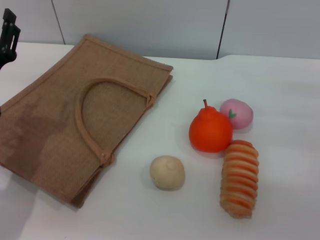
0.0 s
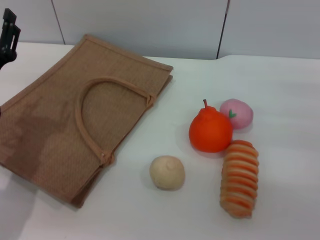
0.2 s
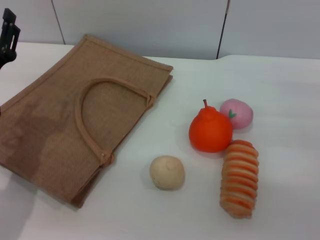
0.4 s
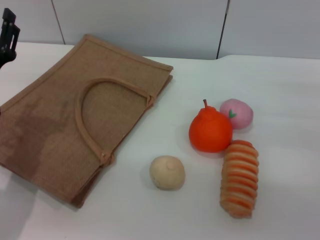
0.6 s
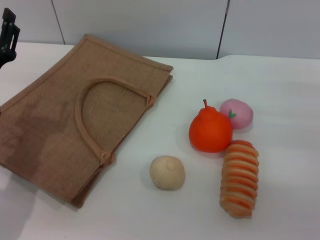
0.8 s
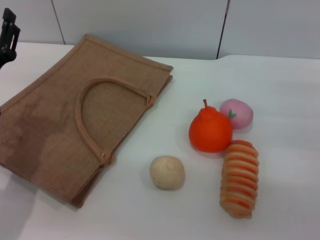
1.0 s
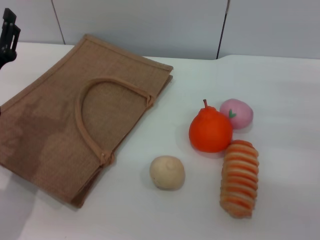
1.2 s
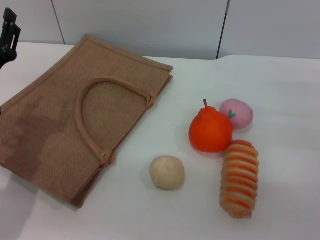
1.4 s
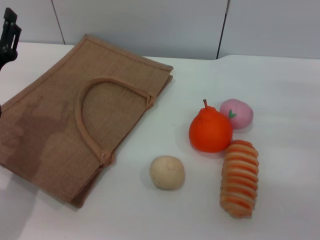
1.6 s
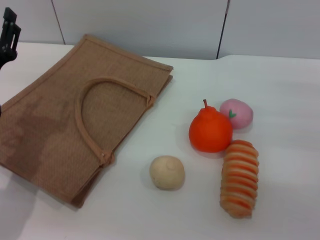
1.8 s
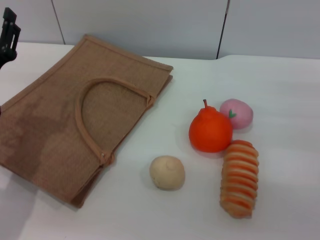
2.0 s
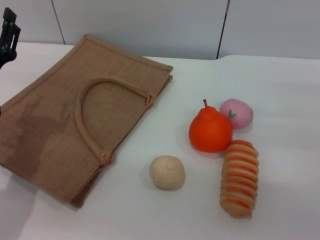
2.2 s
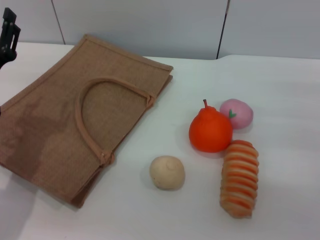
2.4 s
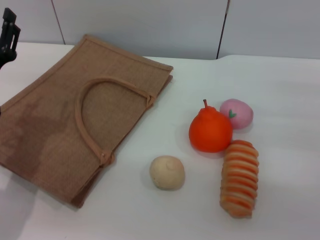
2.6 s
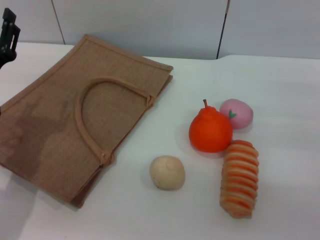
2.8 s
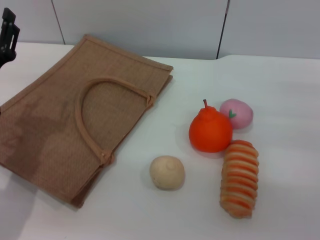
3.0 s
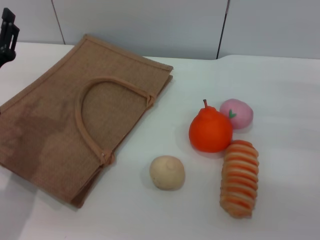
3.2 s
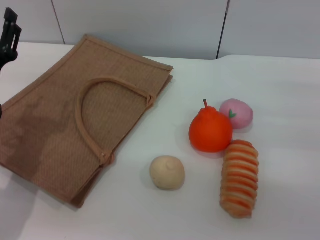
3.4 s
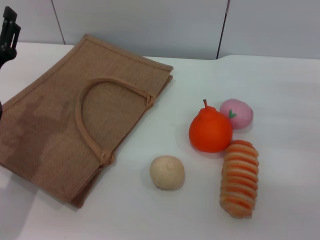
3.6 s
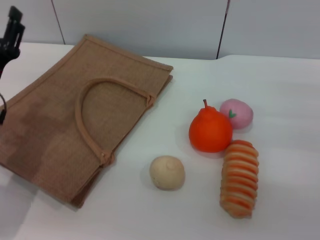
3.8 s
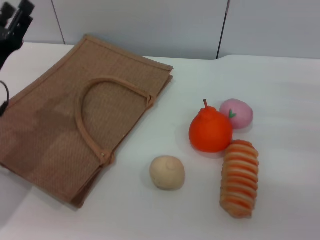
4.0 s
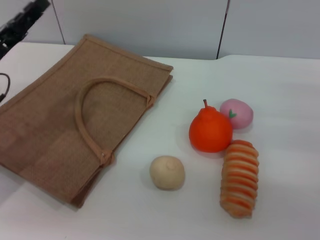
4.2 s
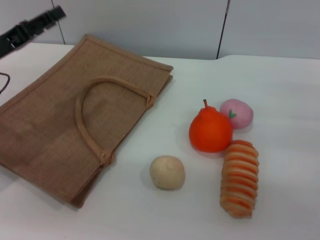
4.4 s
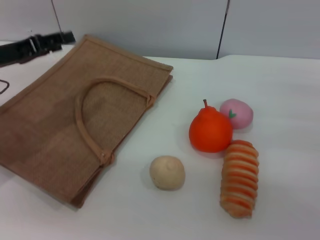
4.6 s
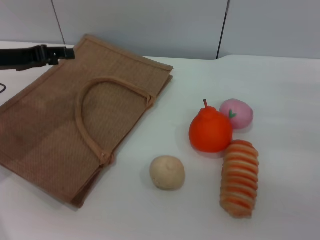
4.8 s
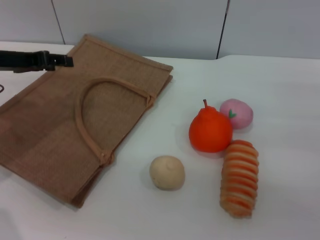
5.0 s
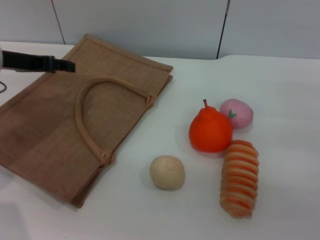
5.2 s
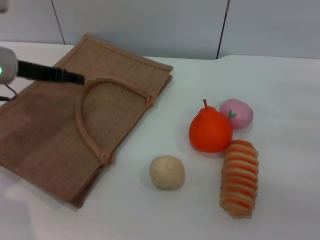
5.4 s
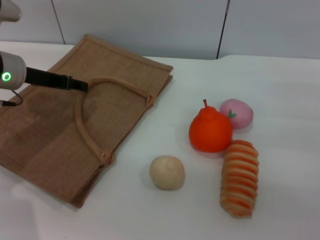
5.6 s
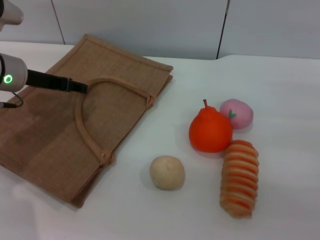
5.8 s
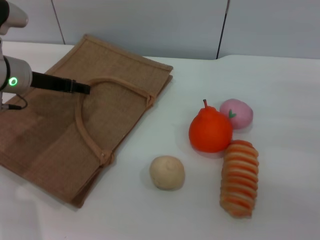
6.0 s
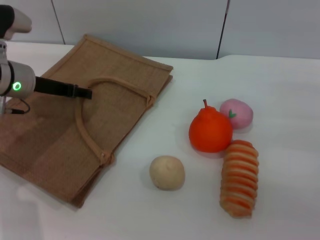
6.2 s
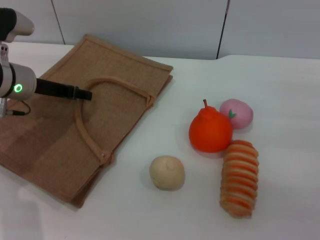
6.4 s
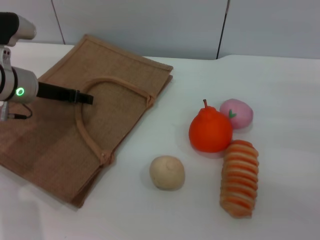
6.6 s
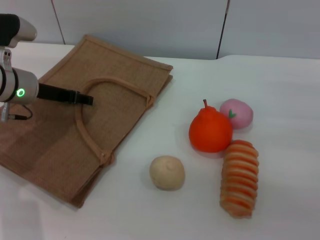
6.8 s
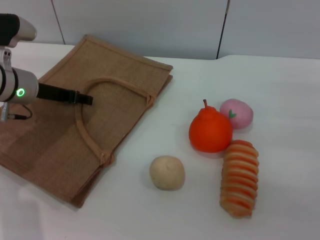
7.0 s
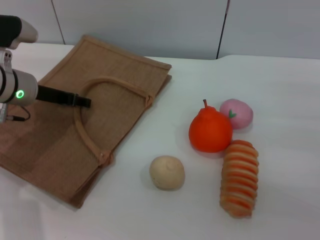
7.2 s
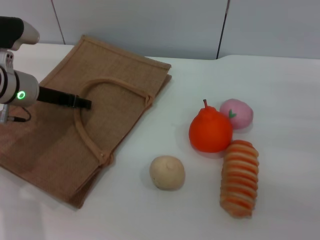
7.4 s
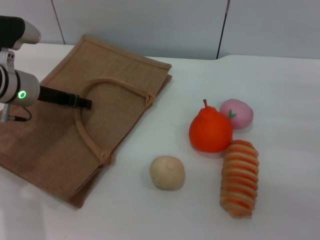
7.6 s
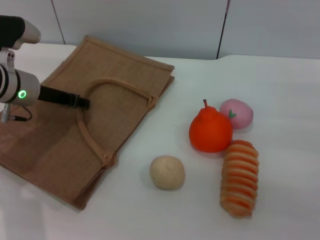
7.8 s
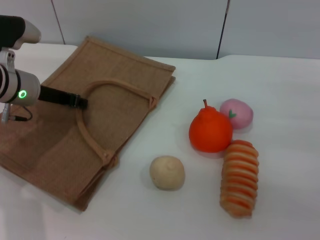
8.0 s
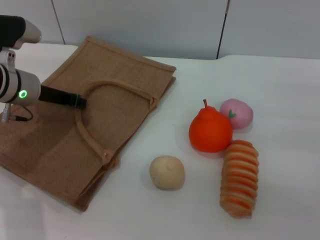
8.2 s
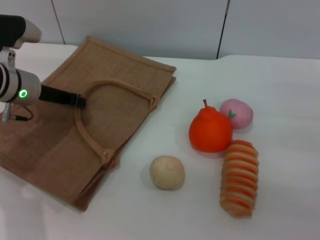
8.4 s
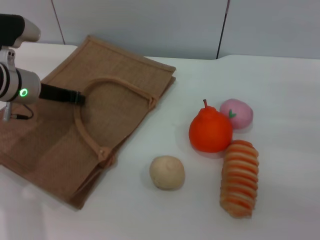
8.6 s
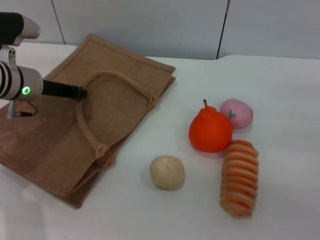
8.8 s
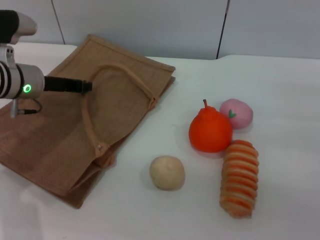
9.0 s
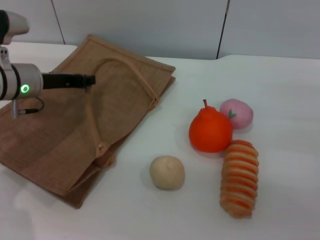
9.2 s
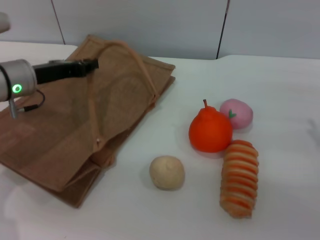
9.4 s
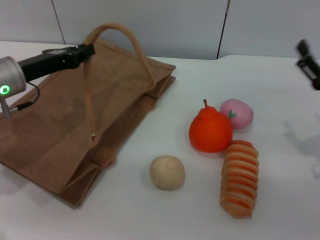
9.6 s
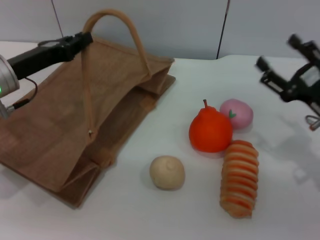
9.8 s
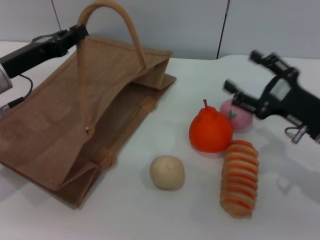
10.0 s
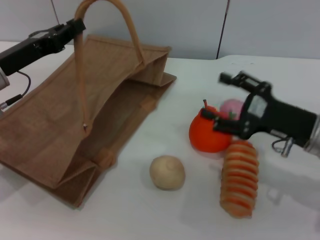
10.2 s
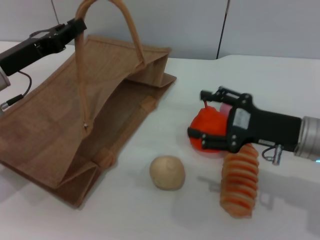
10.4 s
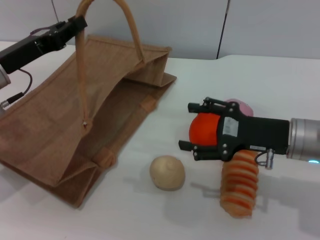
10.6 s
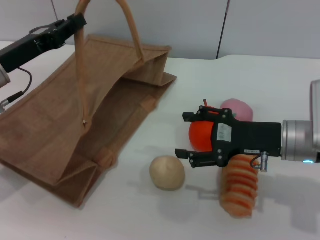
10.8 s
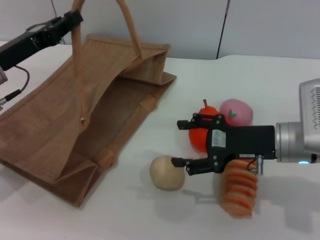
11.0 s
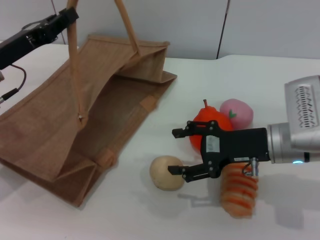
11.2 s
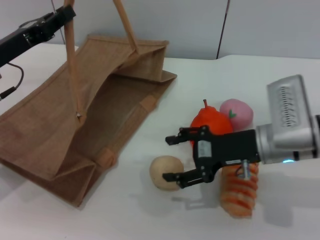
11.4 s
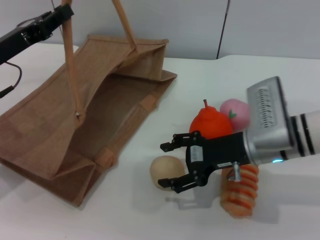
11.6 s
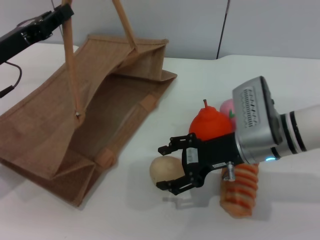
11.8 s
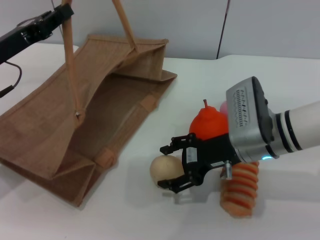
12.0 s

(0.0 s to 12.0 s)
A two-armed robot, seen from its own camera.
Task of the whole recording: pick up the egg yolk pastry from the table and place it in the brown handbag.
Step, 0.0 s - 9.6 s: Lift the woven bag with the left gripper to open it.
0.0 s - 3.0 s: The two grippers keep their place.
3.0 s - 4.4 s: The left gripper goes approximately 5 cm upward.
4.4 s - 6.0 s: The left gripper goes some 5 cm forward.
6.0 s - 7.6 s: The grippers move only a little.
7.6 s - 9.0 s: The left gripper closes its fingers.
9.0 s - 10.4 s: The left gripper shifts some 5 cm backward. The right gripper moves to the left, roughly 10 cm.
10.4 s - 12.0 s: The right gripper travels to the left by approximately 10 cm.

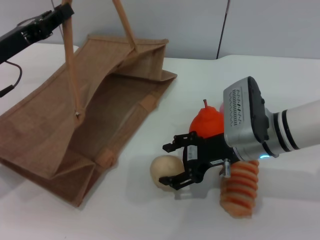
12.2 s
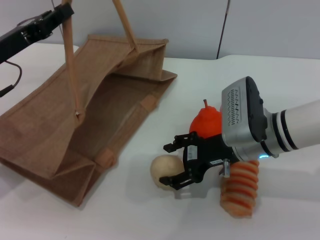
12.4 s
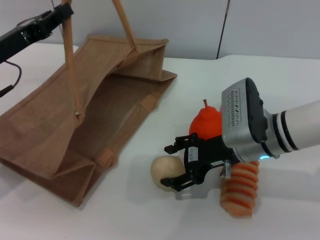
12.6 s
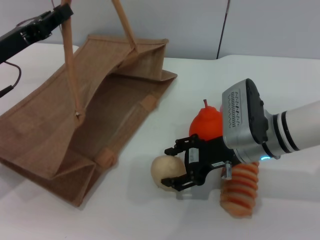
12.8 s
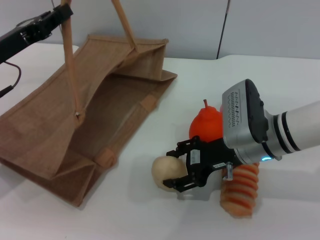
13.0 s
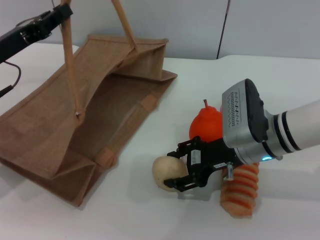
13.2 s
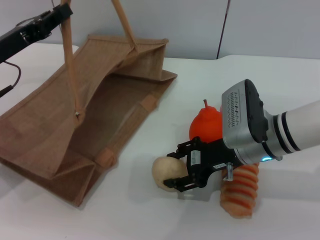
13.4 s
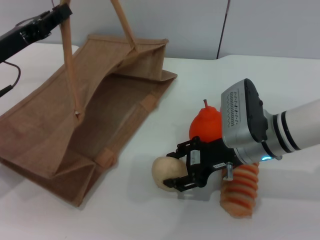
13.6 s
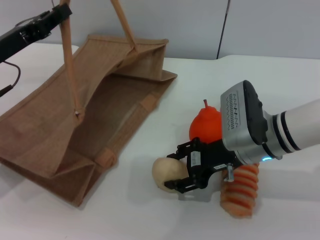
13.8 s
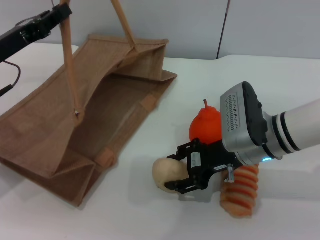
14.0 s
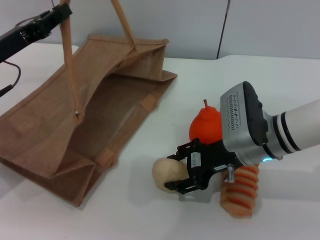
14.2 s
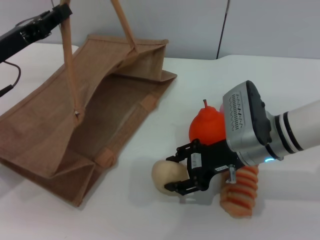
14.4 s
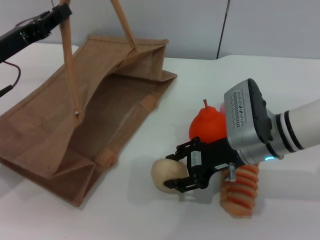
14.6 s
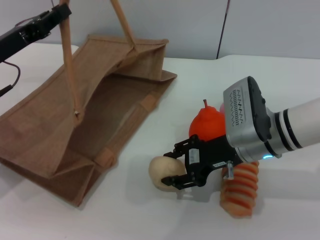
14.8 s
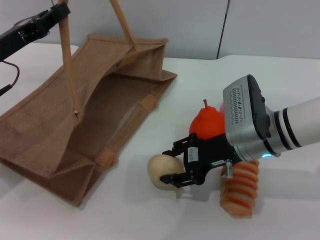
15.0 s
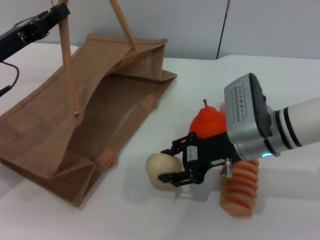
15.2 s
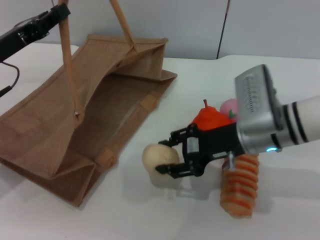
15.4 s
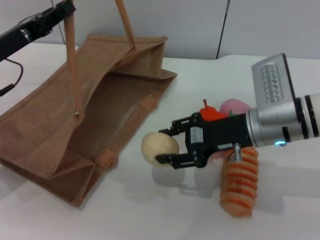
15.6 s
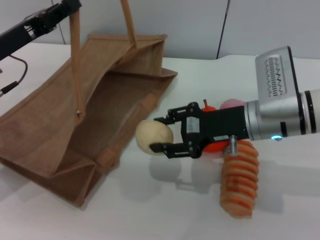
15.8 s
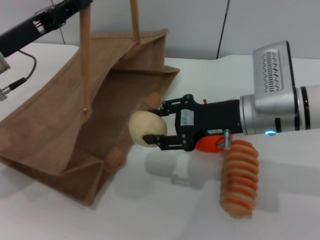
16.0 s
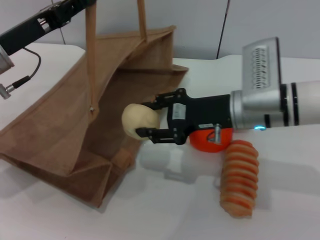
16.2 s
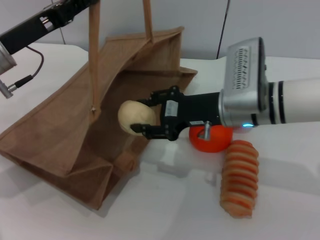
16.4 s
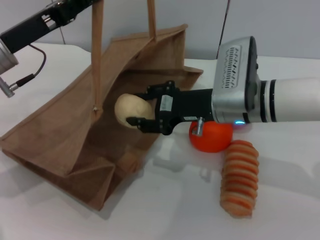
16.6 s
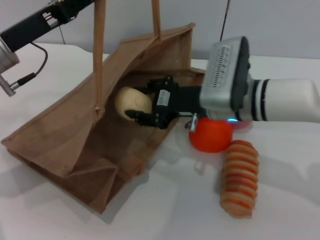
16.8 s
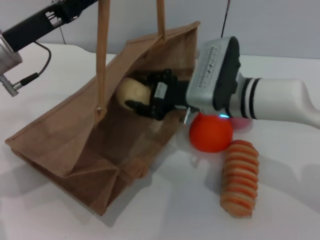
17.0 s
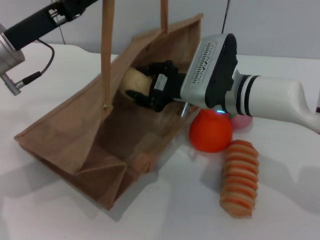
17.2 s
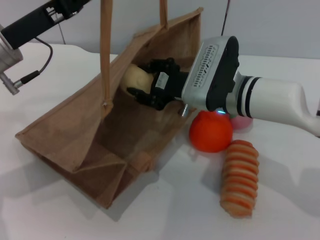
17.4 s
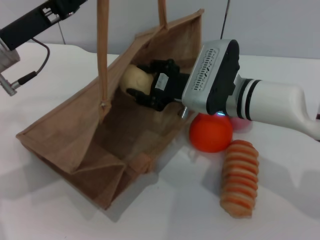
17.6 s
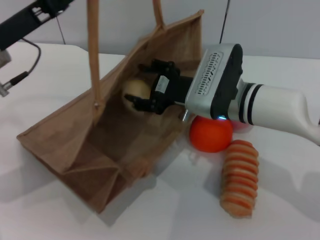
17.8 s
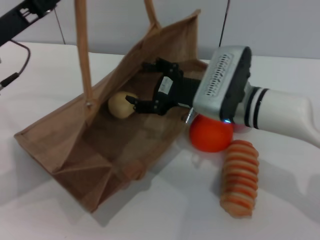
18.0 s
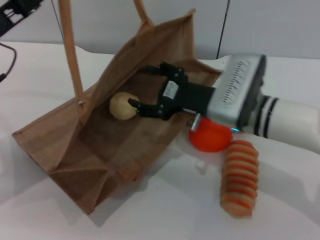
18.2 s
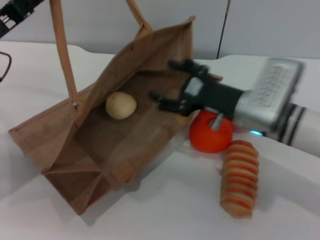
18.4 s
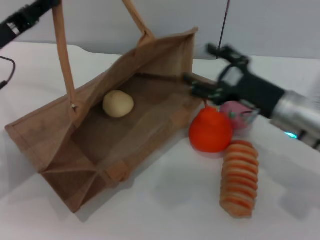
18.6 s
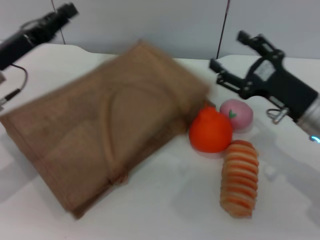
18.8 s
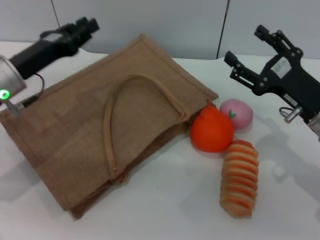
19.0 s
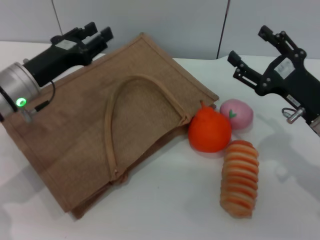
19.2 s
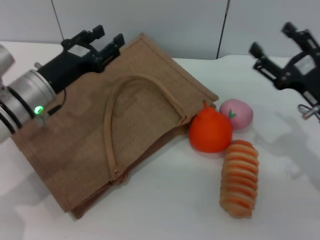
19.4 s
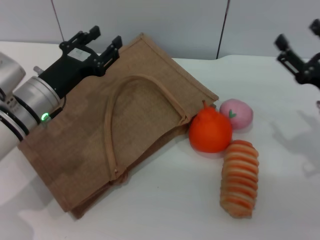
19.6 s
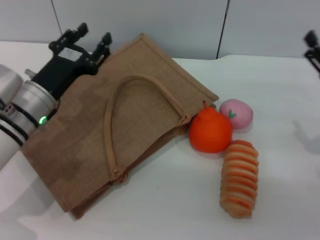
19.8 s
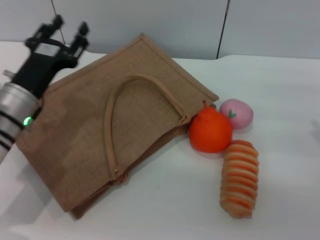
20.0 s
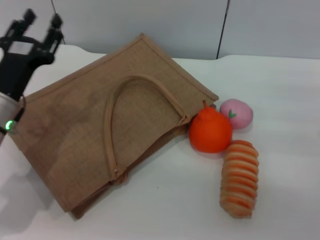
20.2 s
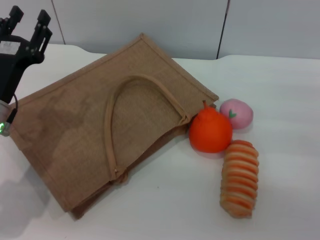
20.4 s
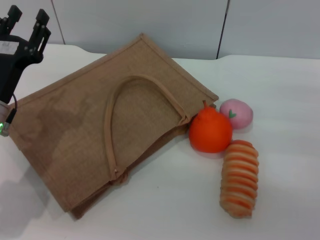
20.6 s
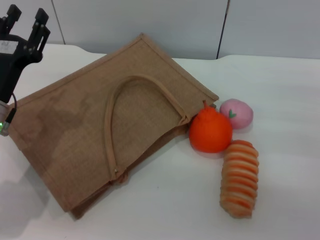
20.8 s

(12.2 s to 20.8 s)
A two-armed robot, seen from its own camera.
Task of the whole recording: pick up the egg yolk pastry from the table and place it in the brown handbag.
Step, 12.2 s - 15.2 s: Pick up the egg yolk pastry with the right gripper.
Step, 15.4 s - 18.0 s: Place the egg yolk pastry into the woven bag with the right gripper.
Step, 18.4 s - 19.4 s: Lower the woven bag with the left gripper to close it.
12.2 s - 13.6 s: The right gripper closes.
13.6 s - 15.0 s: Both grippers stay put.
16.6 s - 18.0 s: The right gripper opens up.
18.0 s - 19.4 s: The right gripper travels to the right by some 15 cm, and opens its fingers, while the left gripper travels downward and to the right by some 10 cm, and opens its fingers.
19.4 s - 20.8 s: The left gripper heads backward, covering approximately 5 cm; the right gripper goes about 5 cm to the right.

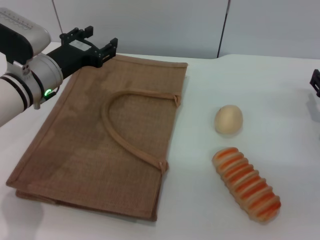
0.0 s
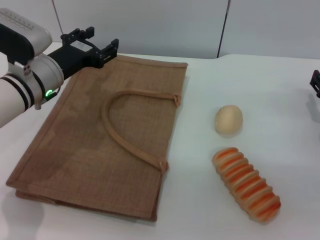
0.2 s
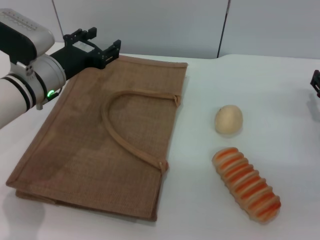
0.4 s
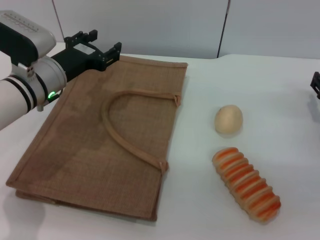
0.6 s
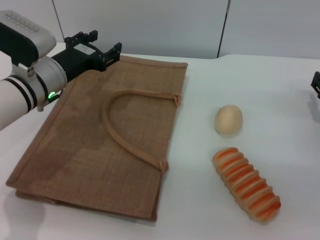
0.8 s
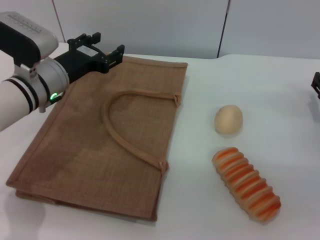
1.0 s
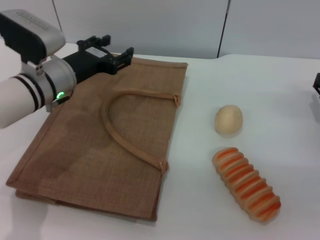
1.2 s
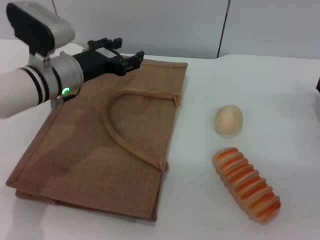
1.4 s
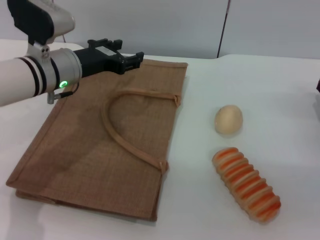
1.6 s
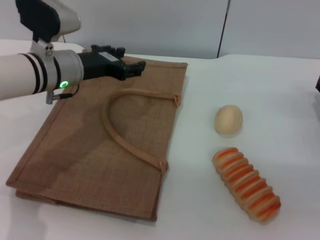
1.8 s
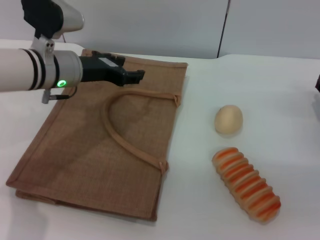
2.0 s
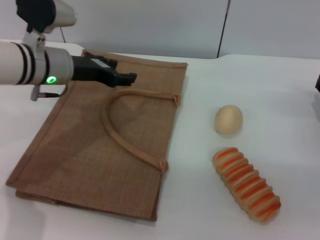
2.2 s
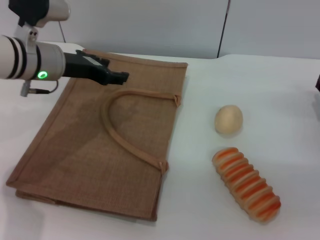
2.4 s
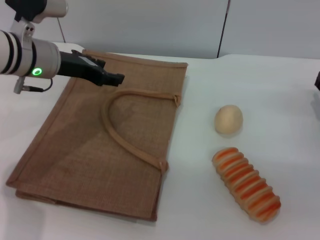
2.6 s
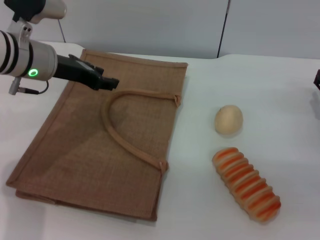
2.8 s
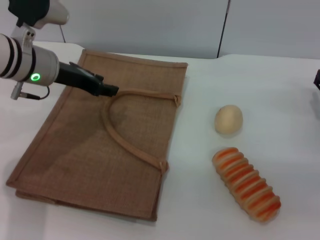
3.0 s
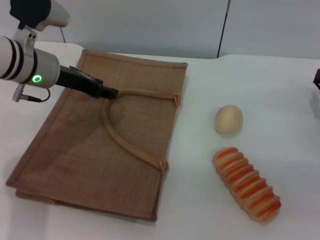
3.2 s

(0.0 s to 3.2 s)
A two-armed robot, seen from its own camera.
Task of the whole recording: pick up the bread and egg yolk pastry from the table and place it in the brown handbag.
0.0 s - 1.6 s: The grippers stay close to where they were, moving slightly.
